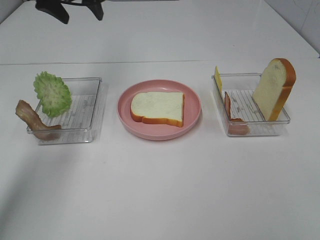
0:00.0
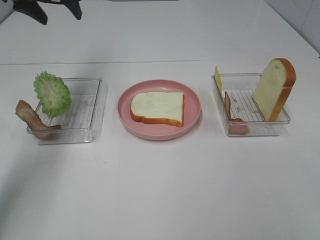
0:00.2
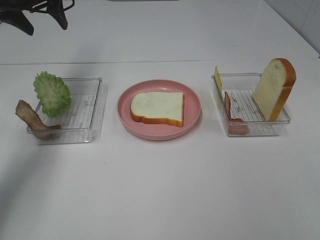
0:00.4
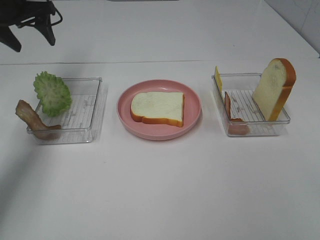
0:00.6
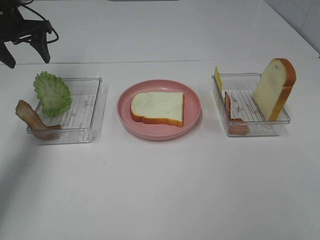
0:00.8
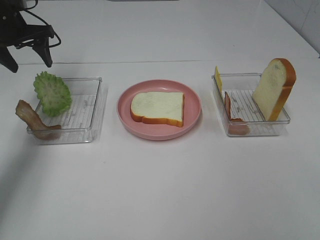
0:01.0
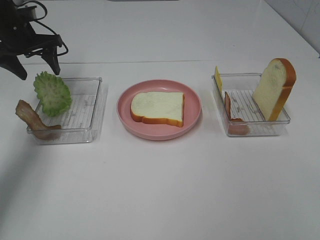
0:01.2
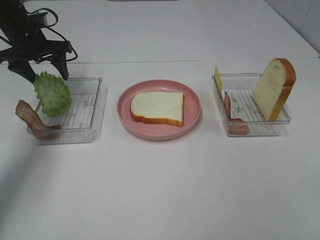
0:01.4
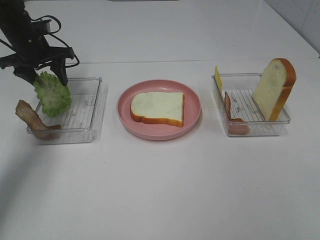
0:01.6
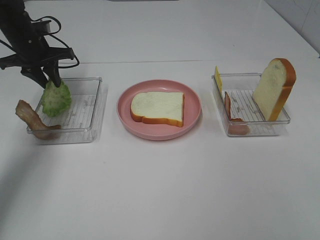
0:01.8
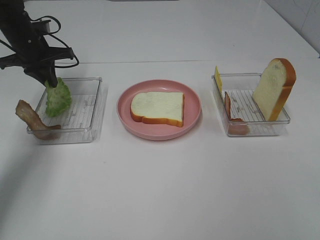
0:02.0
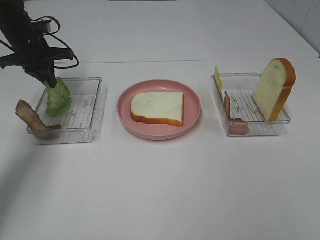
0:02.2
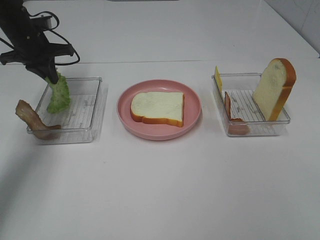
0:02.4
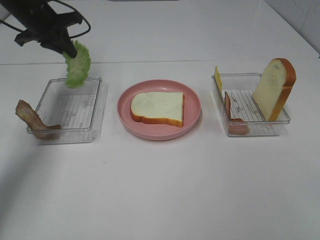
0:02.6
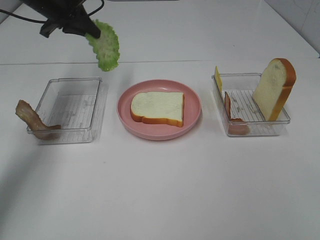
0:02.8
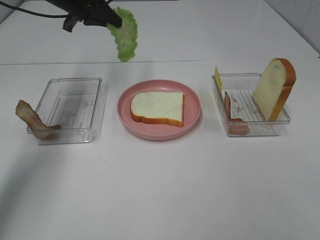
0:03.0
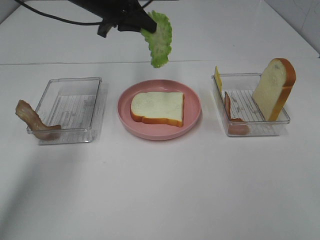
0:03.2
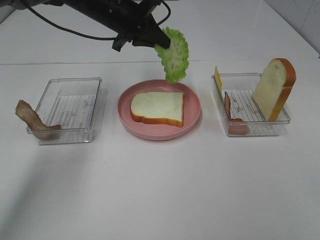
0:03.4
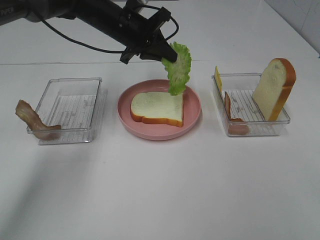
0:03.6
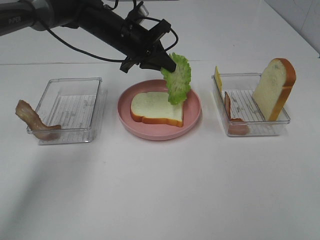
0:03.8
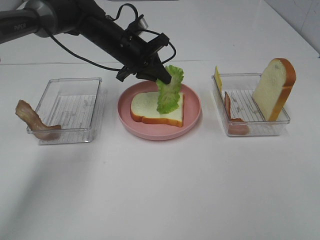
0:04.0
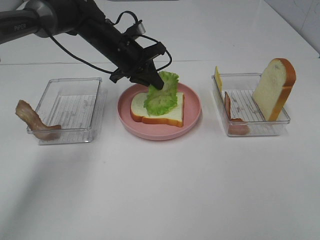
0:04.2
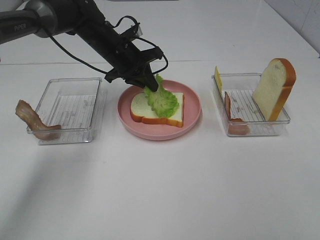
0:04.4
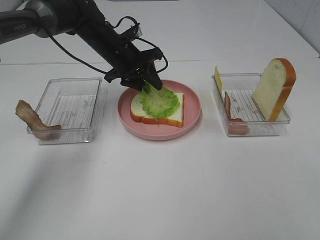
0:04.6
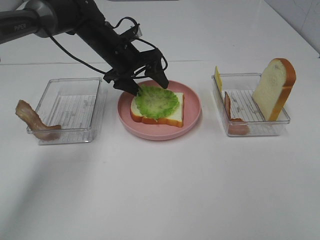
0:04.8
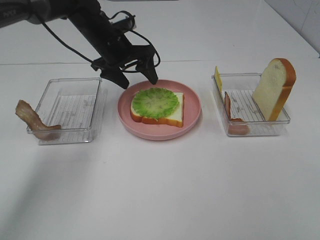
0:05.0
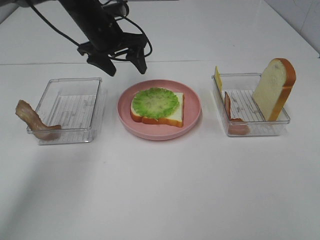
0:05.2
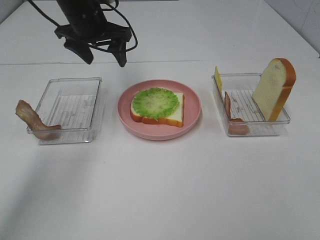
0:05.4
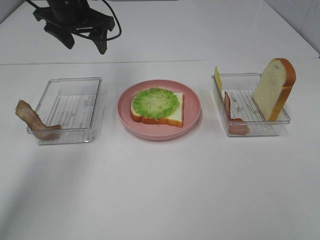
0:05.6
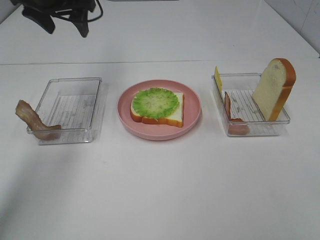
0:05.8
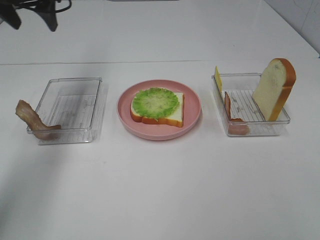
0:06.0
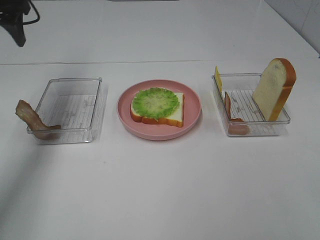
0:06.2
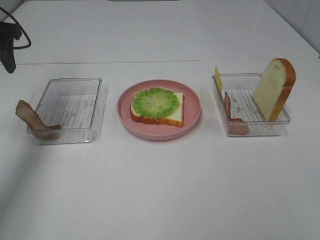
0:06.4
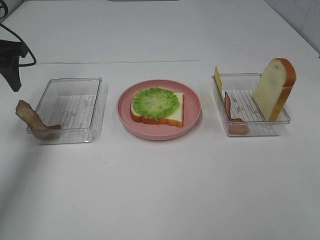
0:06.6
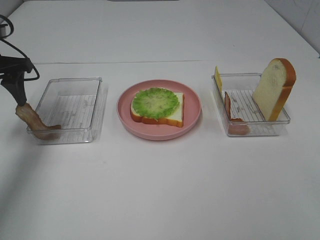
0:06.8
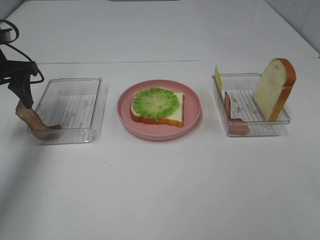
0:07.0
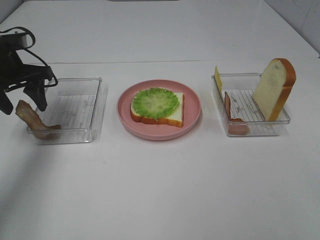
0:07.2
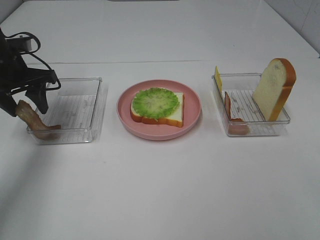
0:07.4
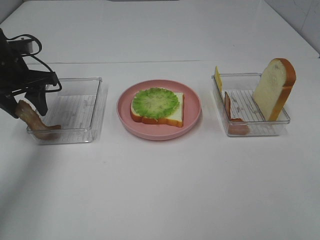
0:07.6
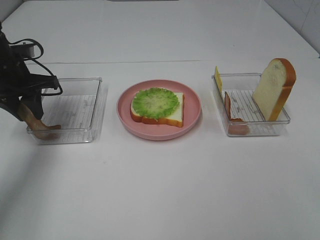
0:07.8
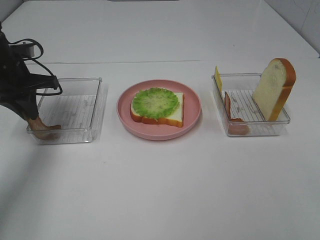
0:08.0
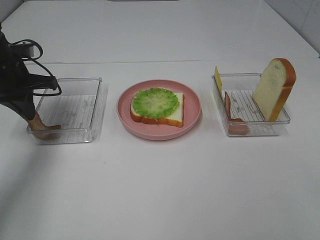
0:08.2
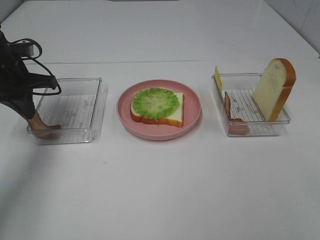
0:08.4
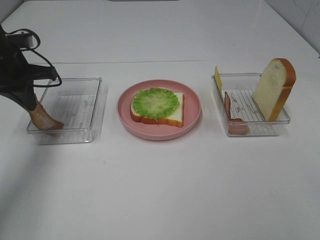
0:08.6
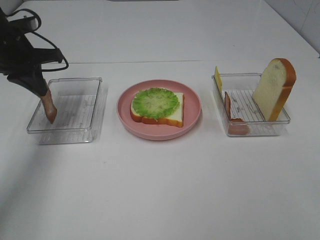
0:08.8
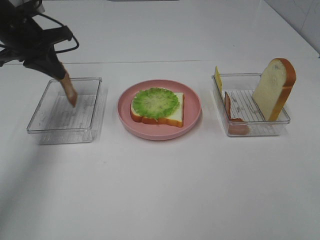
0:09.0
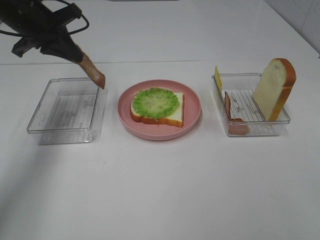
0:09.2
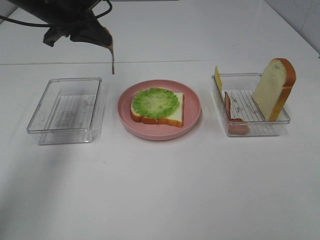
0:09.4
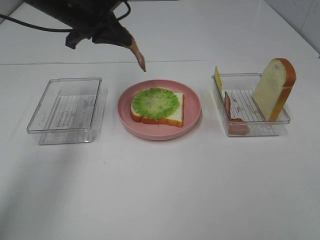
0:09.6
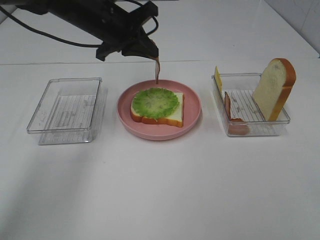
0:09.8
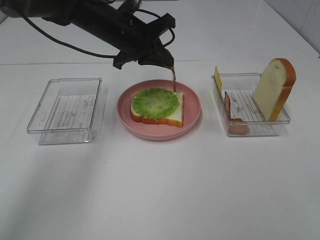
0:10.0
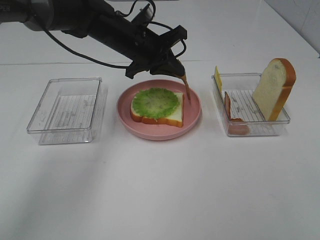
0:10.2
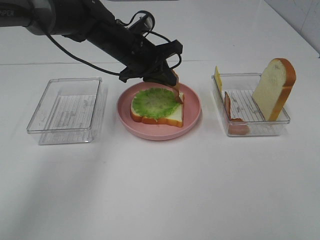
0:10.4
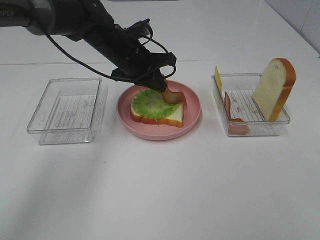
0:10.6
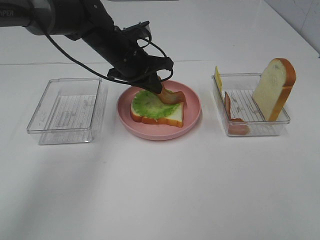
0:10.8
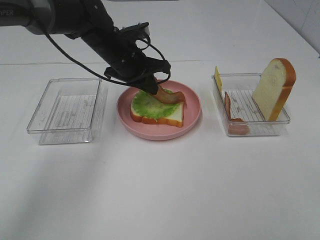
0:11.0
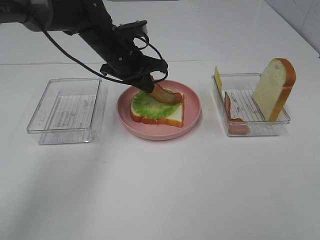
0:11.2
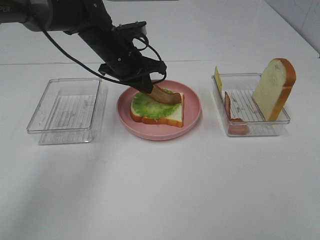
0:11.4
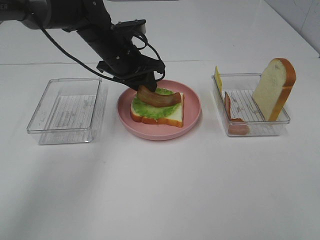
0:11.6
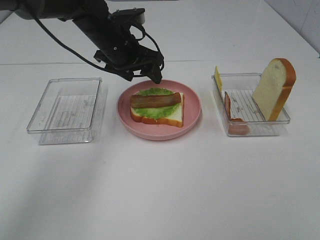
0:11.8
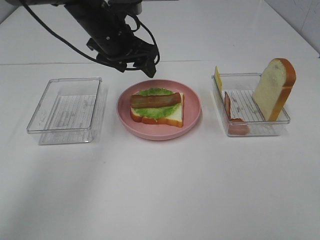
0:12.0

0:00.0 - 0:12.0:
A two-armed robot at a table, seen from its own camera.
Task of the whole recording: Make sandwiches.
Step, 0:00.0 - 0:02.2: Left hand:grab the lettuce slice.
Step, 0:02.4 - 0:05.2: Left hand:place the lettuce slice on the bread slice.
Step, 0:05.4 - 0:08.4: Left hand:grab the bacon.
Step, 0:08.6 - 0:11.8: Left hand:place bacon on lettuce slice.
0:00.0 - 0:01.6: The left gripper shifts roughly 15 cm downward and to the left.
0:01.6 - 0:03.0: The left gripper goes roughly 15 cm upward and to the right, and closes up.
0:03.0 - 0:04.4: The left gripper is displaced downward and to the right by approximately 15 cm.
0:04.4 - 0:06.0: The left gripper heads upward and to the left, covering some 25 cm, and opens up.
0:06.0 - 0:07.6: The left gripper moves downward and backward, roughly 15 cm.
0:07.6 - 0:09.0: The left gripper travels upward by approximately 5 cm, and closes up.
0:09.0 - 0:10.4: The left gripper goes roughly 20 cm to the right.
0:10.4 - 0:12.0: The left gripper shifts by some 5 cm, and opens up.

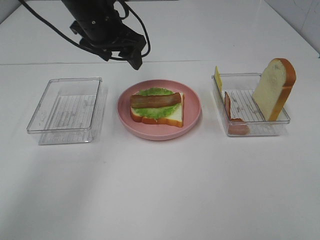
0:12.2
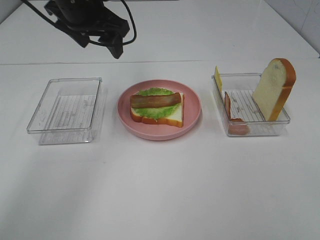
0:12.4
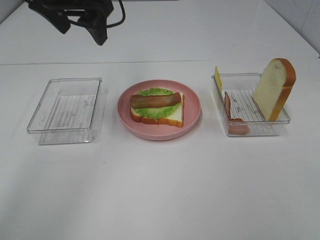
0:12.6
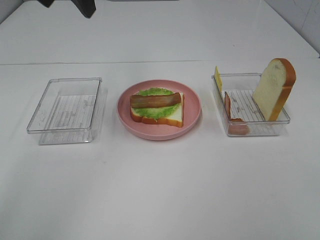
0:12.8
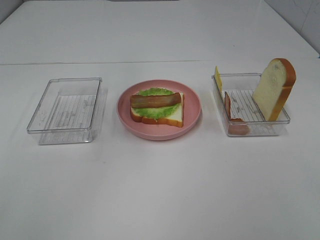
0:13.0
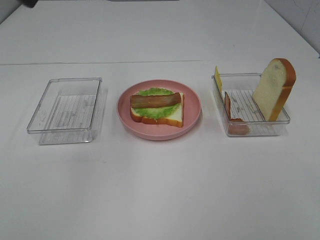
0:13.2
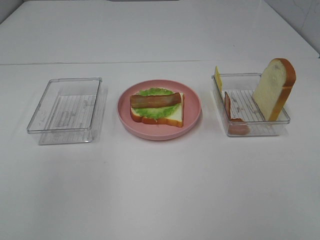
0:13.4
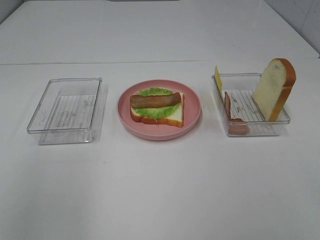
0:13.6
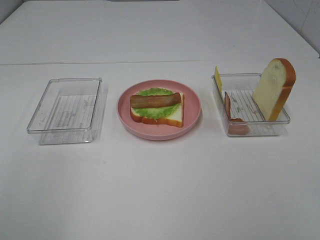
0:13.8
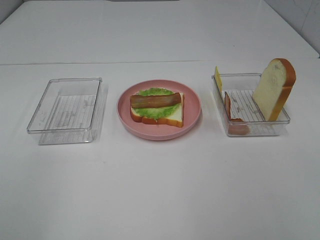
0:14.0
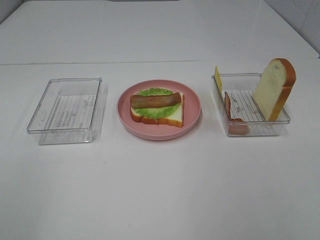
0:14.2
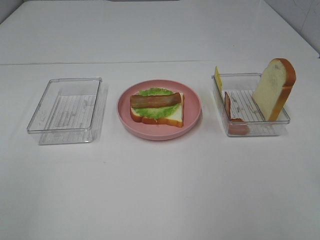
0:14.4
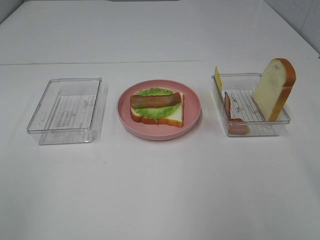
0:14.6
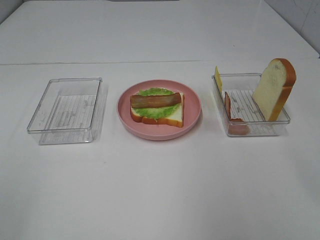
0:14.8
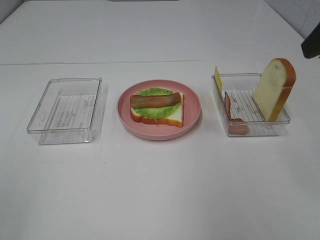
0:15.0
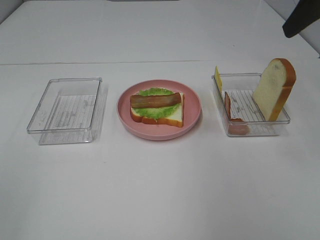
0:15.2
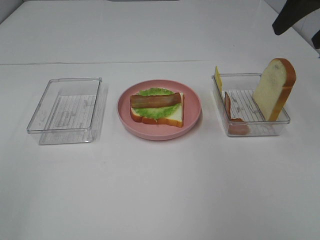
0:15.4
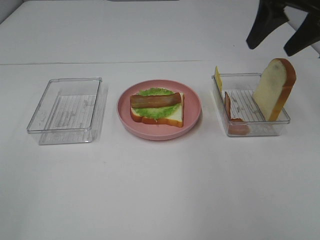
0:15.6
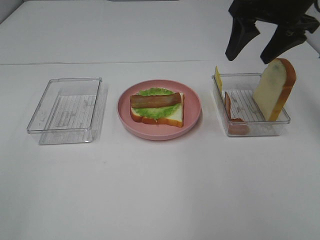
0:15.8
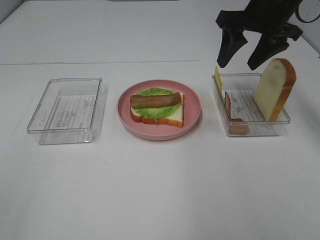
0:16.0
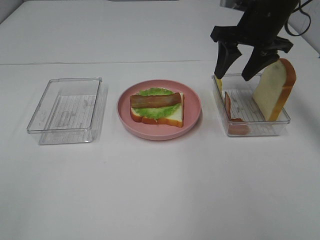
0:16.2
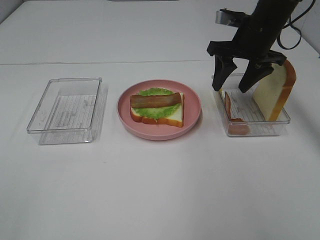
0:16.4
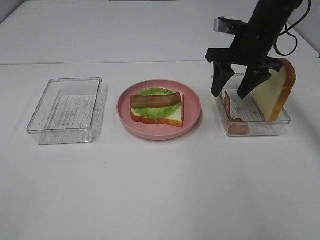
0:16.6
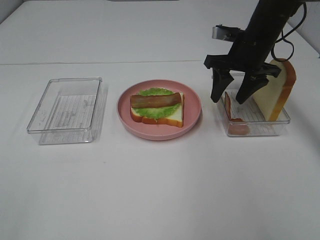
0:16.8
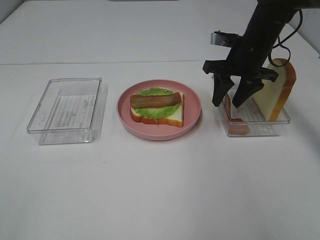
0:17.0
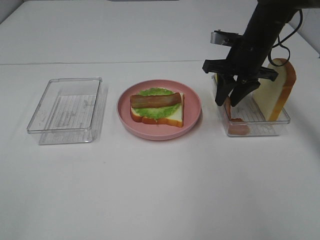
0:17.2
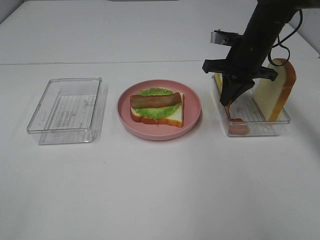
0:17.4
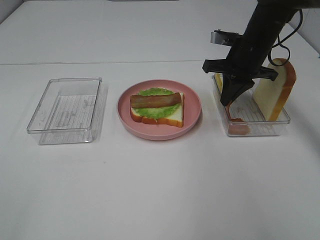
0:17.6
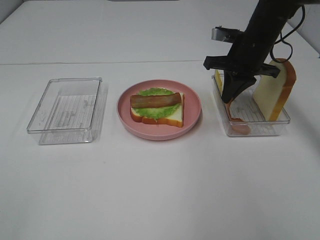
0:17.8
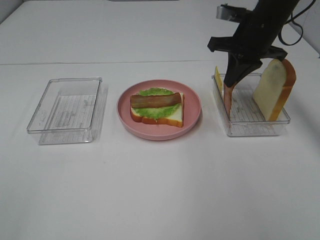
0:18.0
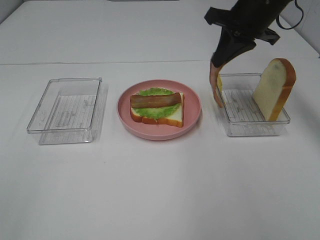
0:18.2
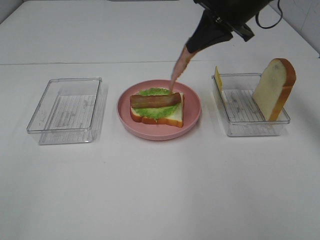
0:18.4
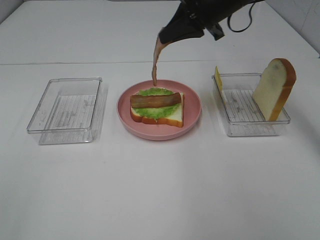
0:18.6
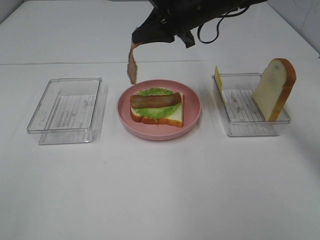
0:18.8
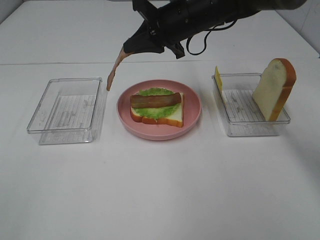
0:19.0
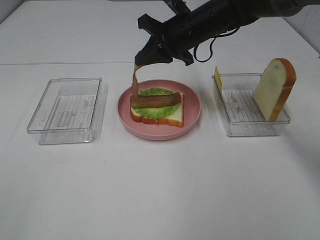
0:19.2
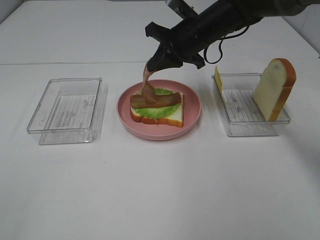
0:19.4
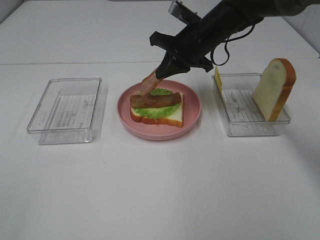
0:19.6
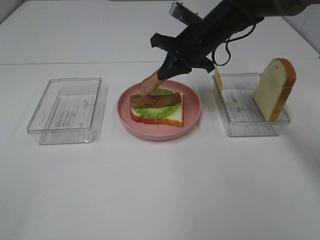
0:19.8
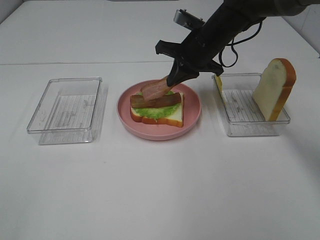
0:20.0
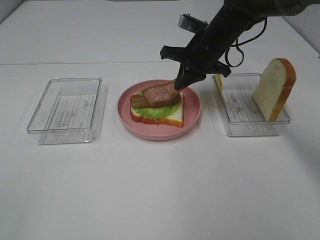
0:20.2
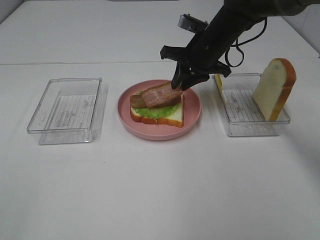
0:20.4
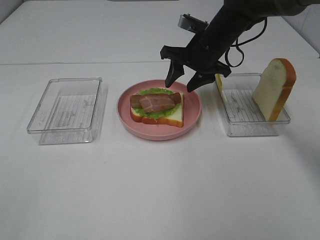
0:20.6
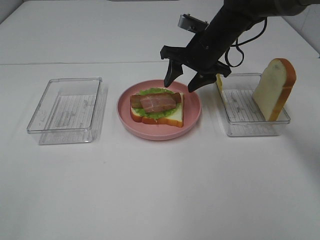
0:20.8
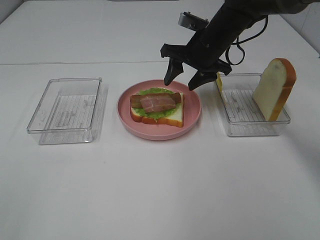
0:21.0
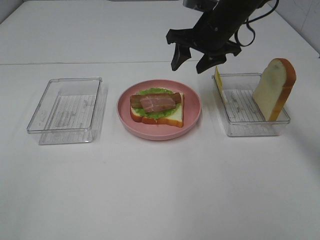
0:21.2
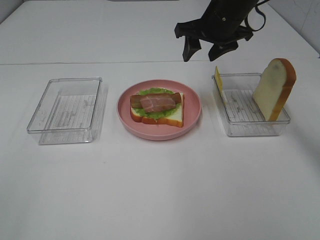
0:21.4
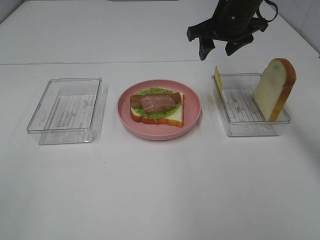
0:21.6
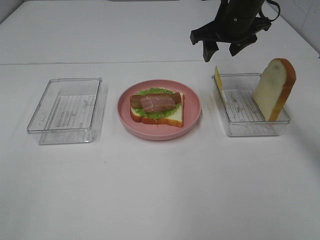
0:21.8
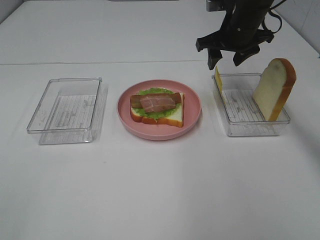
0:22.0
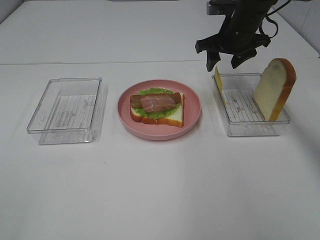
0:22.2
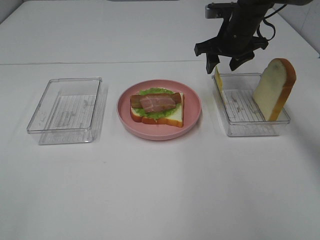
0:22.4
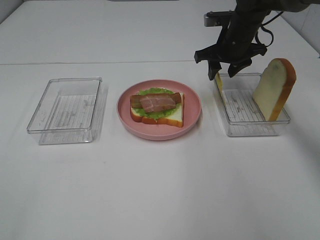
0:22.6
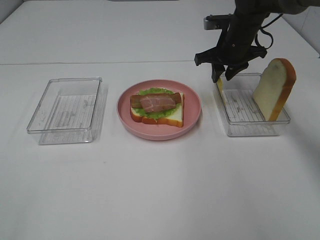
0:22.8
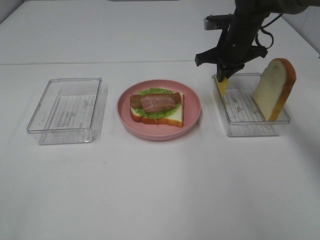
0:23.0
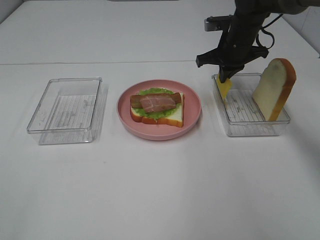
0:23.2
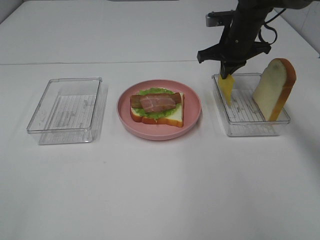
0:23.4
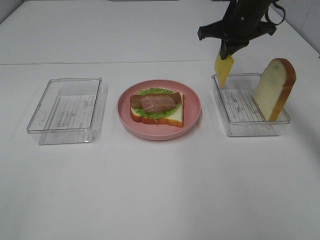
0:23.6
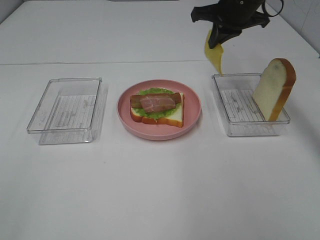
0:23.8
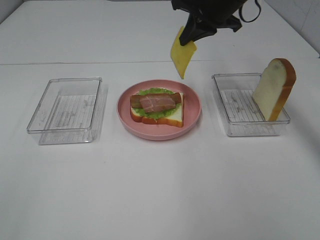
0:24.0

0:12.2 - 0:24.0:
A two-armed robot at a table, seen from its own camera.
Task of the whole recording: Make sandwiches.
Step, 0:12.2 - 0:17.6: Right hand:grab the bacon.
Step, 0:17.8 - 0:20.6: Right hand:place bacon on bacon.
Step, 0:20.8 - 0:23.0: Right hand:grab the cheese slice.
0:12.2 - 0:13.6: The left gripper heads backward, to the left and upward, covering roughly 35 cm.
0:13.6 - 0:15.2: The left gripper goes some 20 cm backward, downward and to the left. The right gripper shifts some 30 cm forward.
0:15.2 - 0:16.6: The right gripper goes some 20 cm downward, forward and to the left.
0:16.6 - 0:18.2: The right gripper is displaced upward by about 5 cm, and closes up.
0:18.2 - 0:19.6: The right gripper moves downward and to the left, roughly 10 cm.
0:19.6 - 0:21.0: The right gripper opens.
0:21.0 - 0:22.6: The right gripper heads to the right, covering about 5 cm.
0:22.6 - 0:24.0: The right gripper moves upward, about 10 cm, and closes up.
